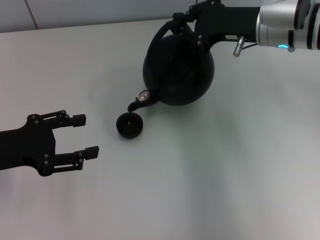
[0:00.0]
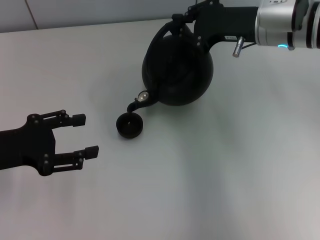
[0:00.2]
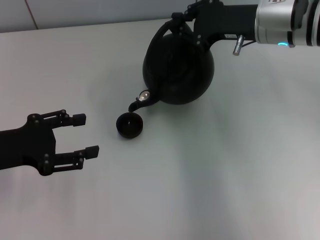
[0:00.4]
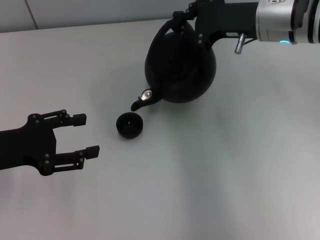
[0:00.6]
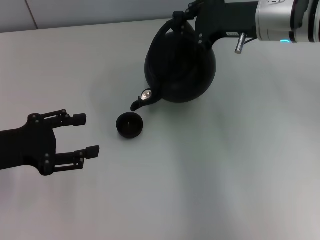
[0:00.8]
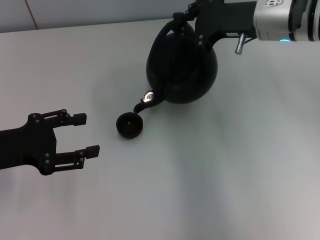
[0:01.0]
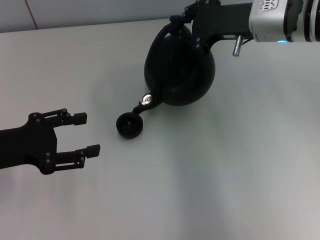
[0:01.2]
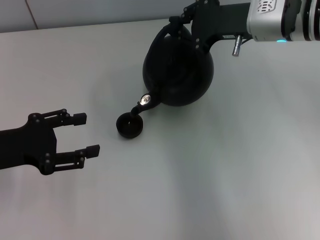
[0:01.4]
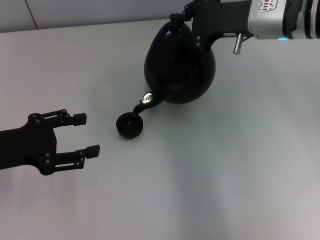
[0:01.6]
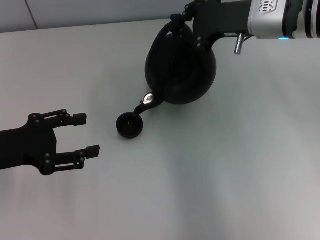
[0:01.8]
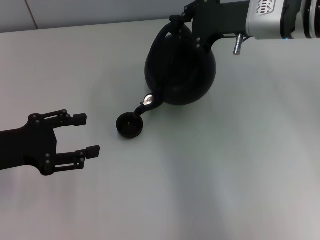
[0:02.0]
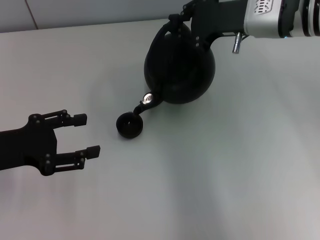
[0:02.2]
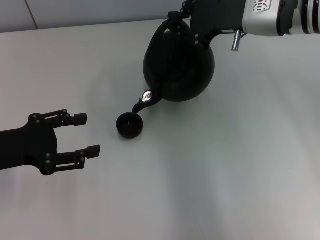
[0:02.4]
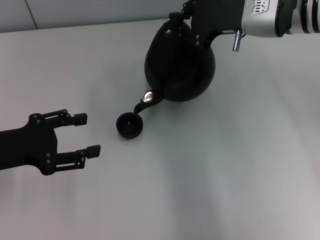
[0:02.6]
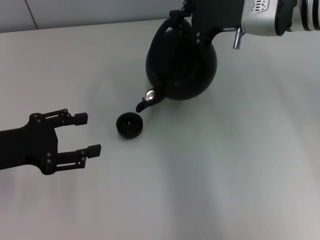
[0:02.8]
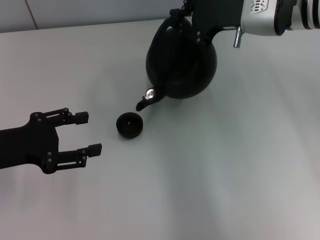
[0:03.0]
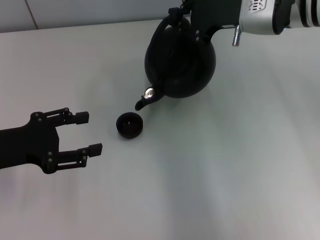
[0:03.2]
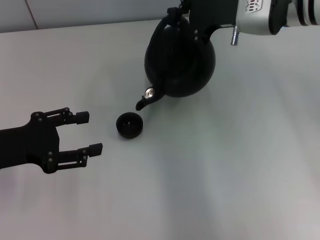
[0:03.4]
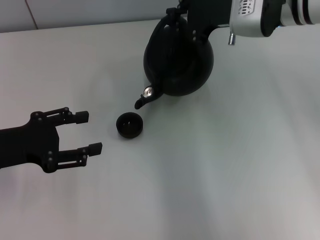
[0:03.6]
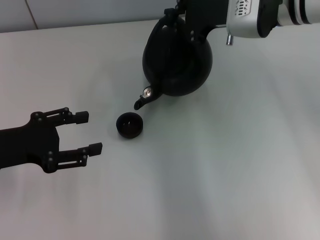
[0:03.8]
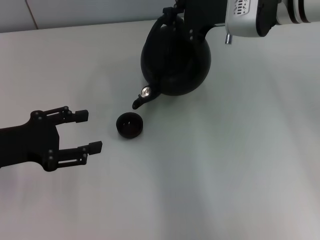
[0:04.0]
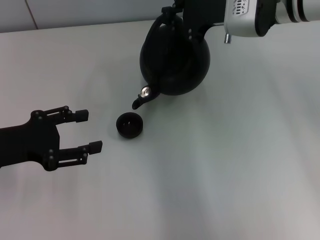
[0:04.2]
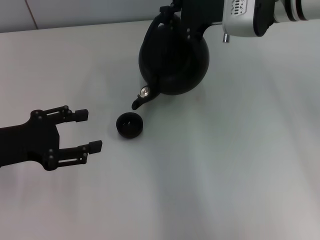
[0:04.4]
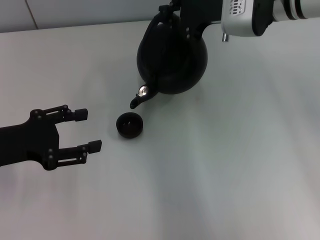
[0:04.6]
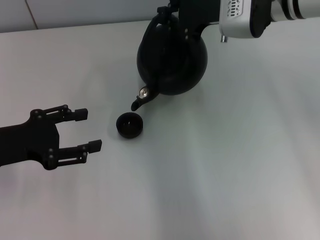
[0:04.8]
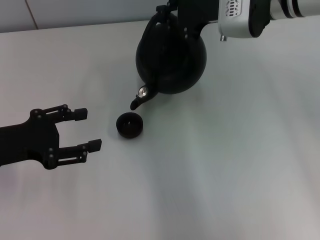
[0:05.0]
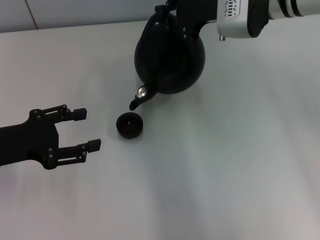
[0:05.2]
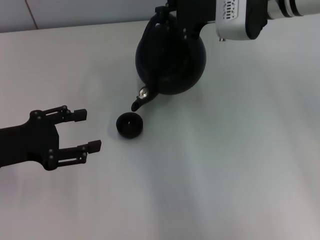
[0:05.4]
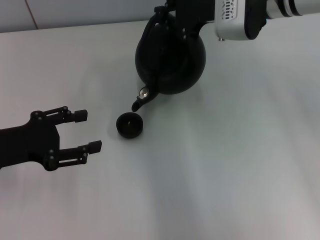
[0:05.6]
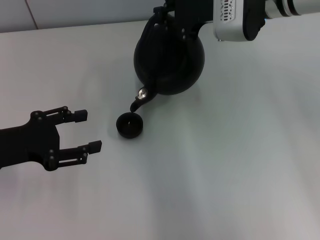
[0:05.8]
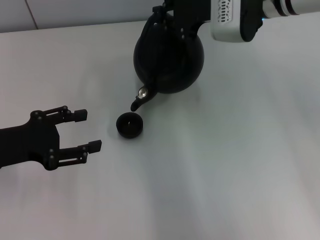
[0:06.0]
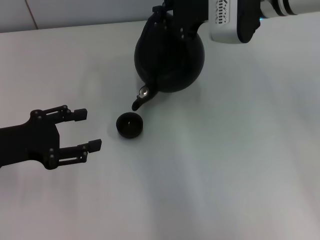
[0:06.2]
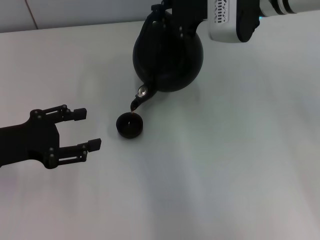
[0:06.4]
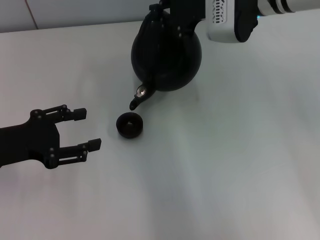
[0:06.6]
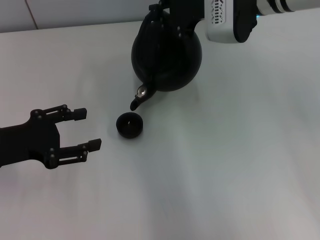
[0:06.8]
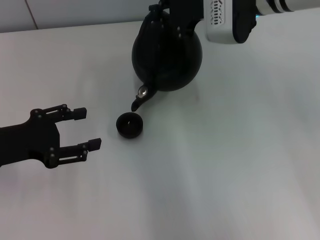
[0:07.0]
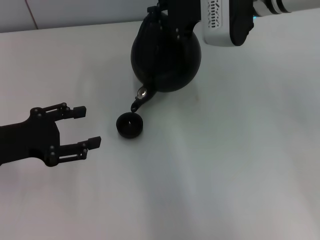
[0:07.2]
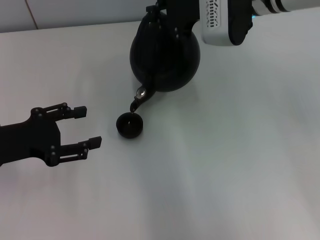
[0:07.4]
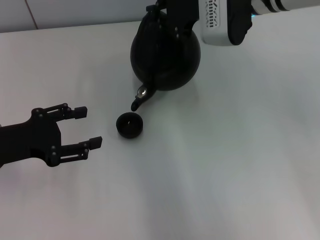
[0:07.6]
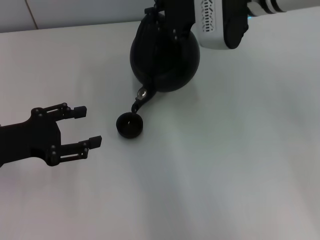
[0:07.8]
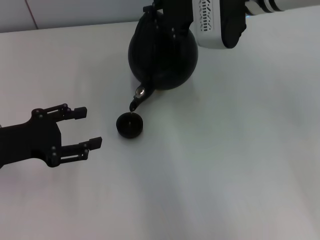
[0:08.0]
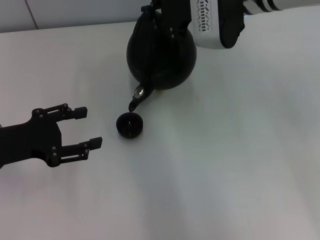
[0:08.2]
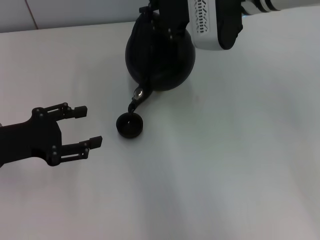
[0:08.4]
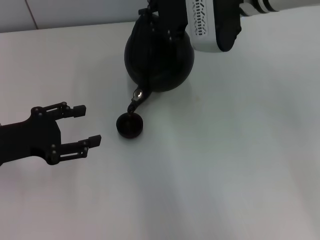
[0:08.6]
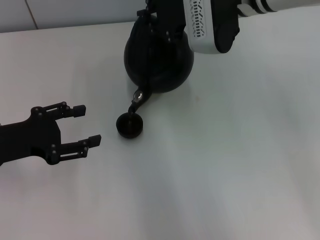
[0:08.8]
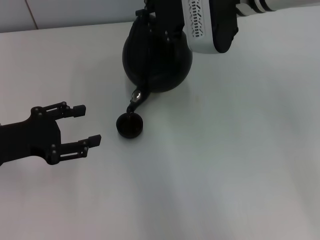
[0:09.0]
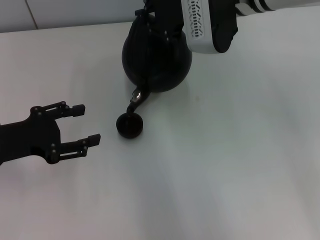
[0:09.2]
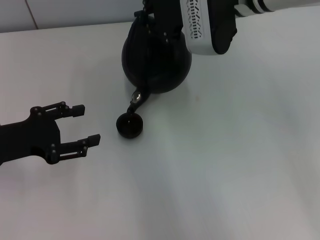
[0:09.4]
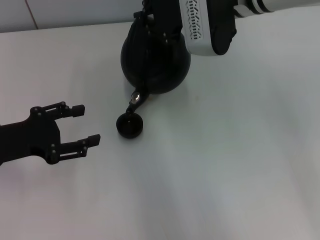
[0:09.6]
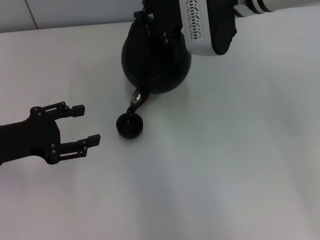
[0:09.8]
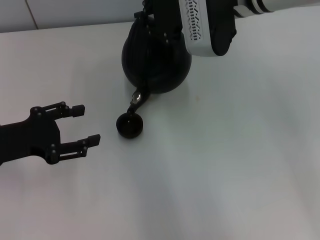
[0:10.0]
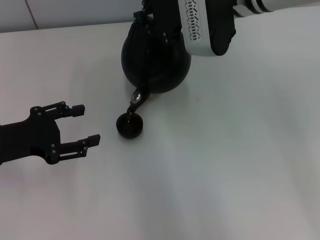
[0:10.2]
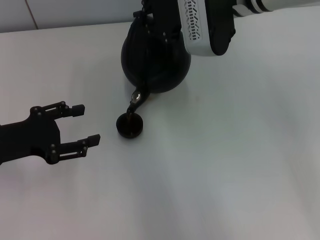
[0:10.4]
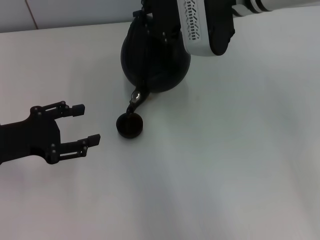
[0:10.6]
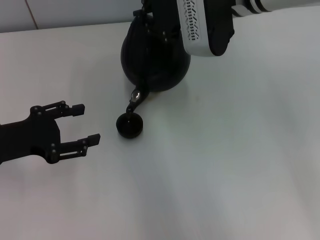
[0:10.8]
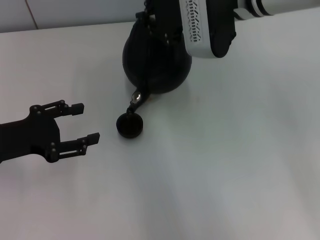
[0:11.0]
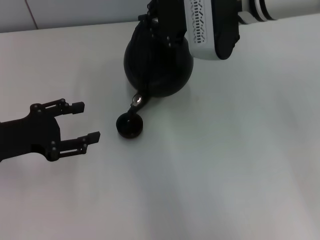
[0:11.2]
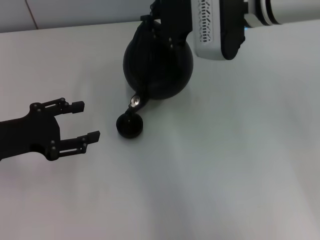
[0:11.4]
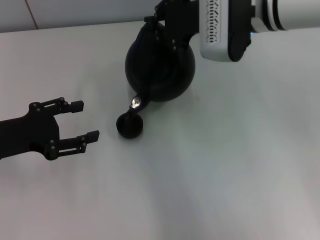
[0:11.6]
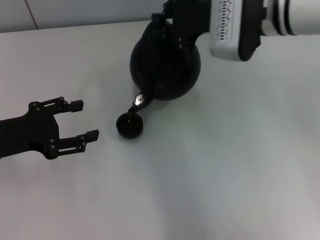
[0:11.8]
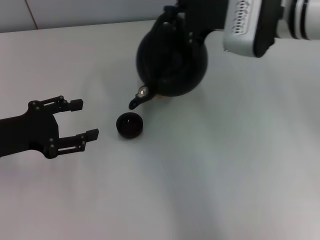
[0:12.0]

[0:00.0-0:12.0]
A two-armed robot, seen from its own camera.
Task of the whole recording: Grasp the handle of the teapot with one hand and pour tea into the teacup.
0:00.0 to 0:03.0: The grippers move only a little.
0:03.0 to 0:07.6: There are only small adjustments of the grippers.
0:07.6 to 0:09.0: The grippers stay close to where they were, moving slightly.
0:09.0 to 0:10.4: Both grippers stay put.
0:10.4 to 0:12.0: The right gripper is displaced to the right by roughly 5 cm.

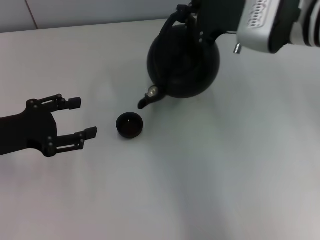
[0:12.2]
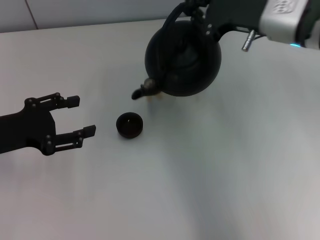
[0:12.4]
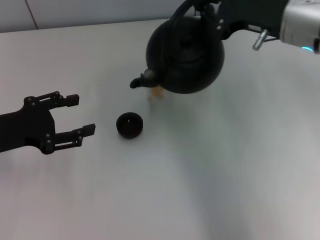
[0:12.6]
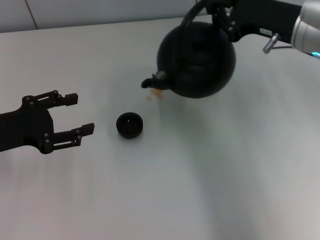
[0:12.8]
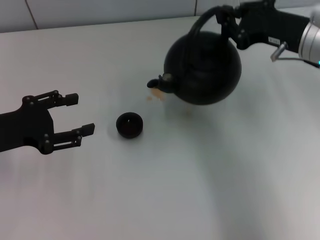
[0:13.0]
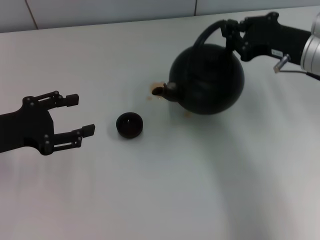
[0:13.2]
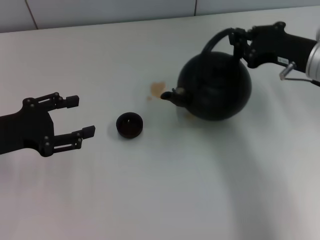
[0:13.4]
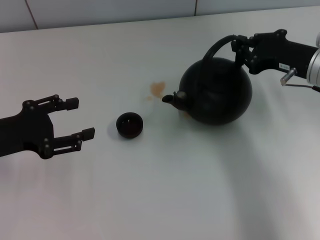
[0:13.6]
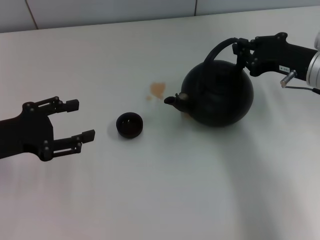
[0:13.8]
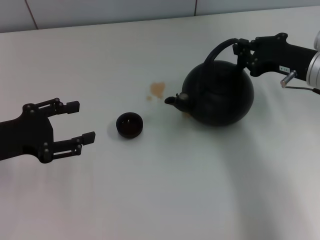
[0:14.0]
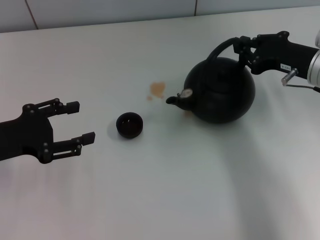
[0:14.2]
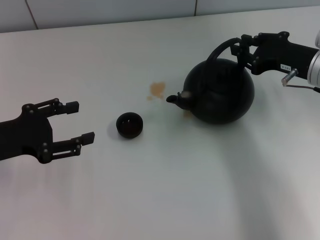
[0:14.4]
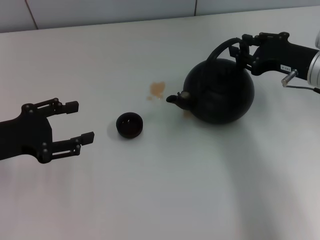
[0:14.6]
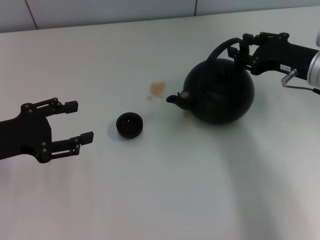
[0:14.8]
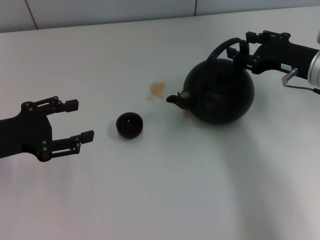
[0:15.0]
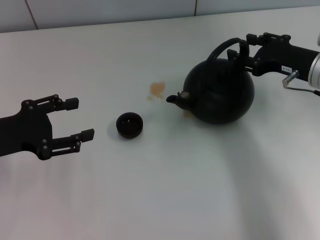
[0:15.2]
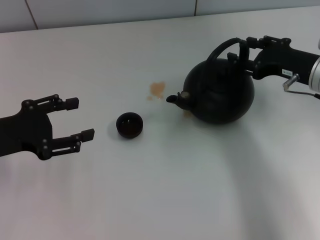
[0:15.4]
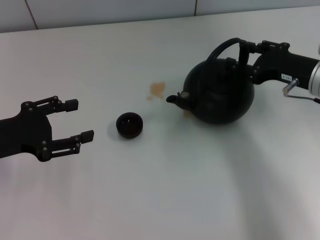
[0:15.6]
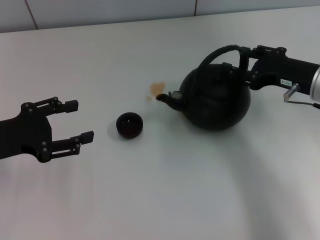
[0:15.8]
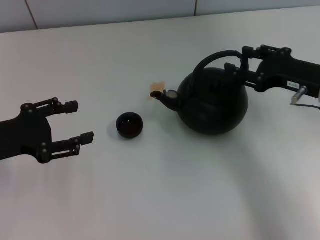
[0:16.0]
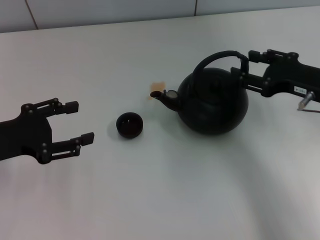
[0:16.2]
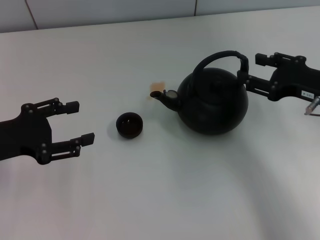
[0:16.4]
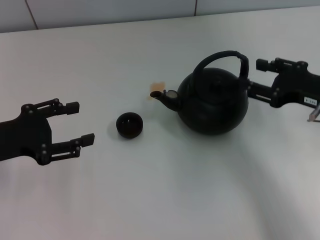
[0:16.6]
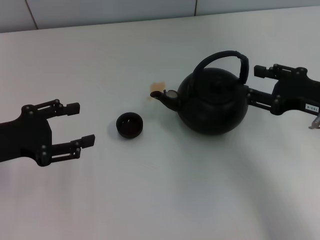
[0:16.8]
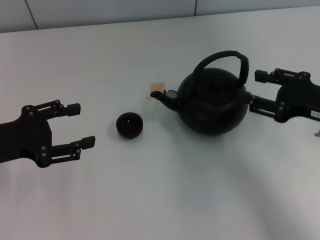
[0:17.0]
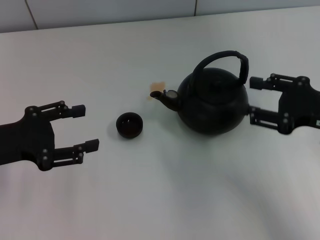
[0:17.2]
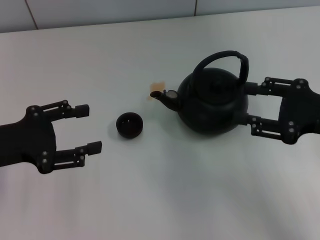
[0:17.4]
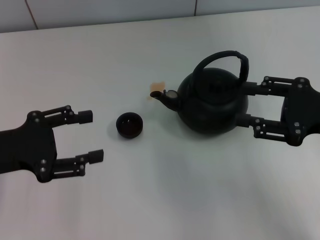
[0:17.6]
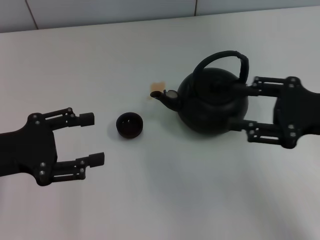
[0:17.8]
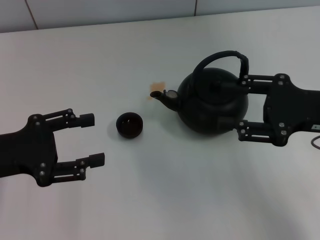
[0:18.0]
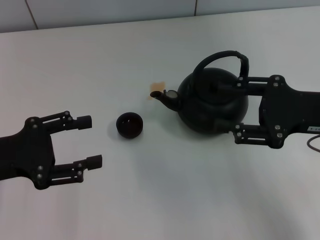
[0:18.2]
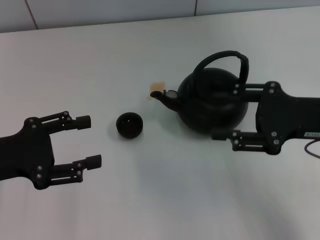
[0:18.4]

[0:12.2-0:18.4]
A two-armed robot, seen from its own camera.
Task of the whole recording: Grasp the handle of the teapot with one hand and pour tea into the teacup.
Step, 0:12.6 to 0:16.6: Put down the teapot with the right gripper.
0:12.2 to 0:13.8: The right gripper moves to the right and downward, about 10 cm.
0:13.8 to 0:15.4: The right gripper opens its fingers.
0:15.4 to 0:16.8: The right gripper heads backward, covering approximately 5 cm.
